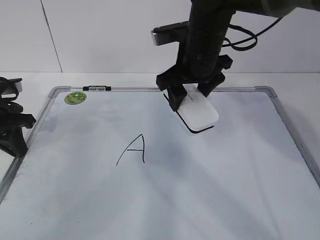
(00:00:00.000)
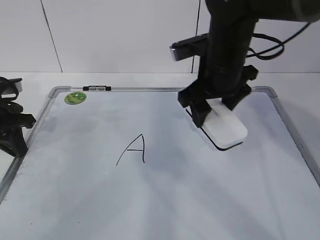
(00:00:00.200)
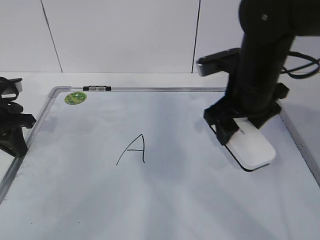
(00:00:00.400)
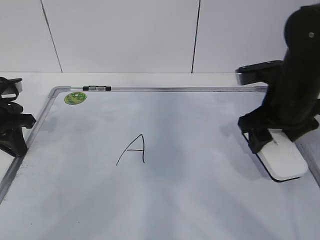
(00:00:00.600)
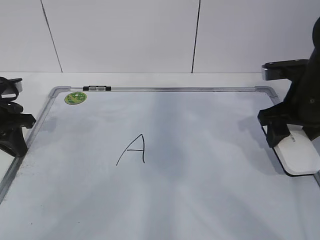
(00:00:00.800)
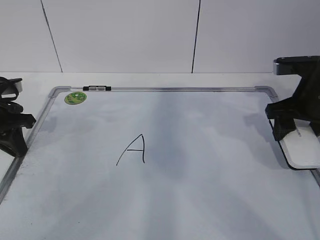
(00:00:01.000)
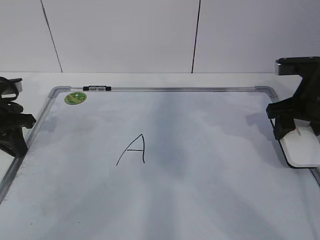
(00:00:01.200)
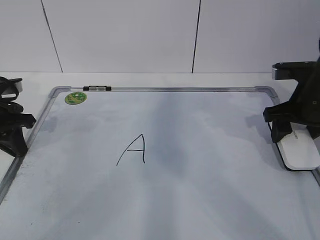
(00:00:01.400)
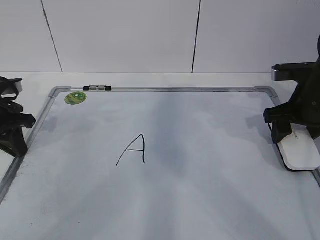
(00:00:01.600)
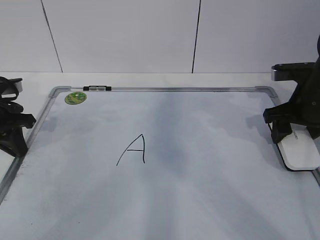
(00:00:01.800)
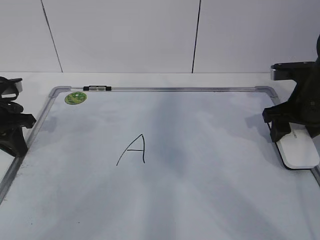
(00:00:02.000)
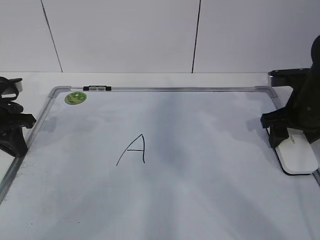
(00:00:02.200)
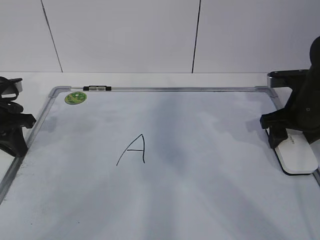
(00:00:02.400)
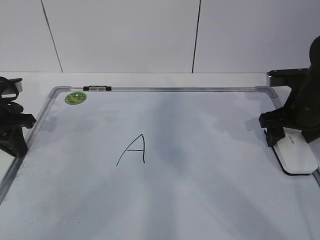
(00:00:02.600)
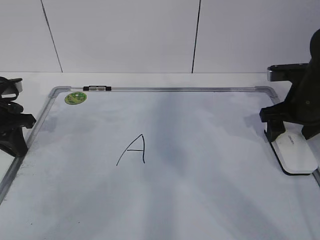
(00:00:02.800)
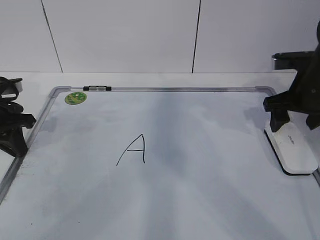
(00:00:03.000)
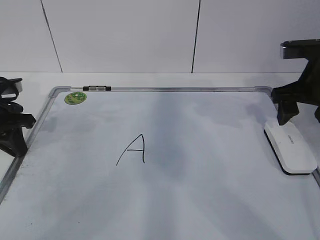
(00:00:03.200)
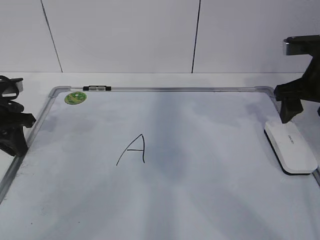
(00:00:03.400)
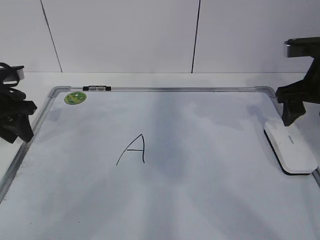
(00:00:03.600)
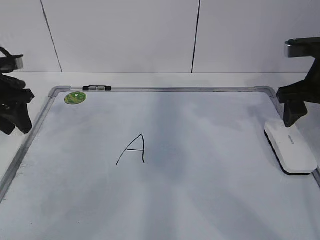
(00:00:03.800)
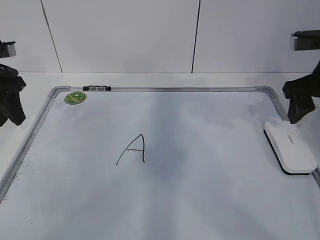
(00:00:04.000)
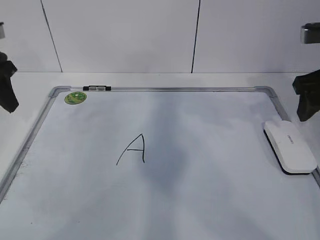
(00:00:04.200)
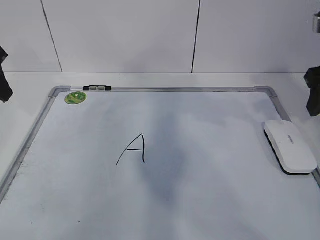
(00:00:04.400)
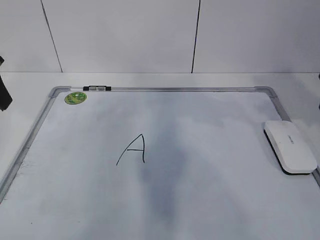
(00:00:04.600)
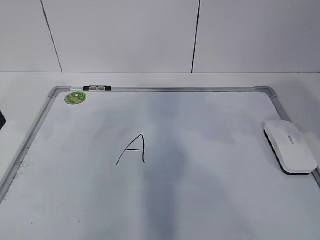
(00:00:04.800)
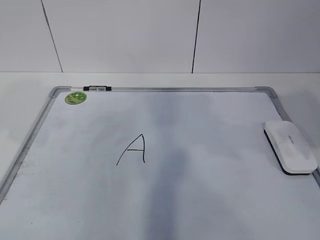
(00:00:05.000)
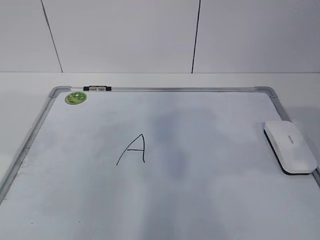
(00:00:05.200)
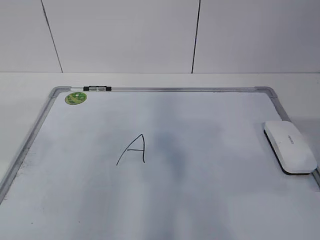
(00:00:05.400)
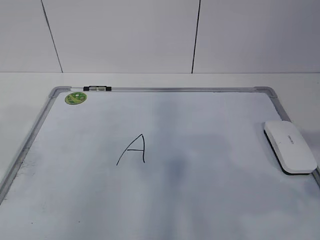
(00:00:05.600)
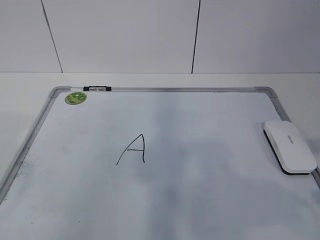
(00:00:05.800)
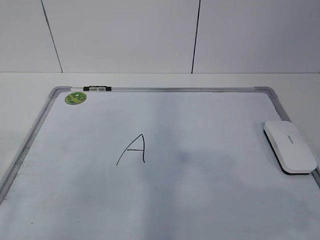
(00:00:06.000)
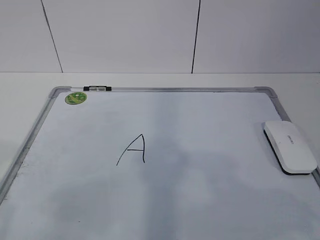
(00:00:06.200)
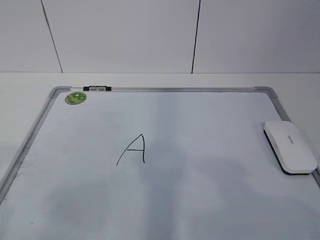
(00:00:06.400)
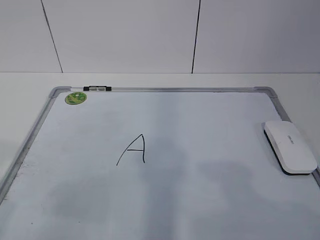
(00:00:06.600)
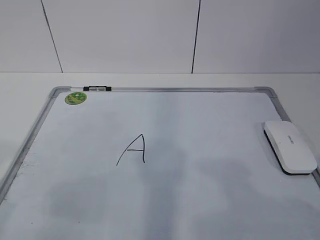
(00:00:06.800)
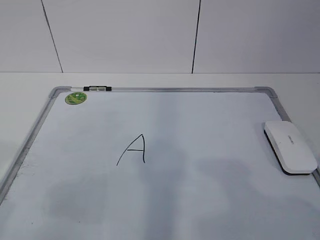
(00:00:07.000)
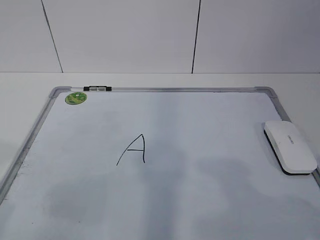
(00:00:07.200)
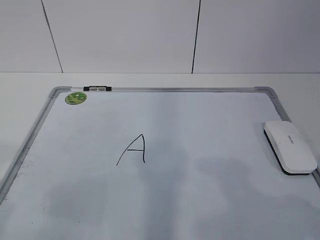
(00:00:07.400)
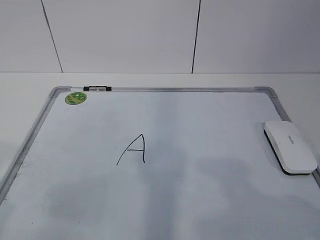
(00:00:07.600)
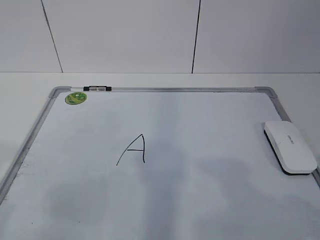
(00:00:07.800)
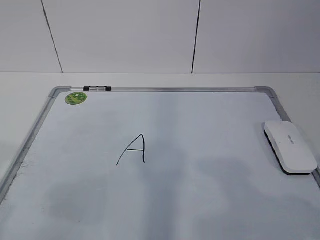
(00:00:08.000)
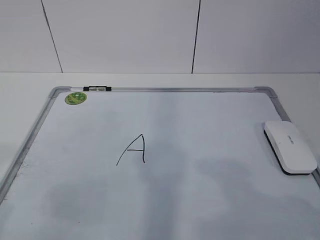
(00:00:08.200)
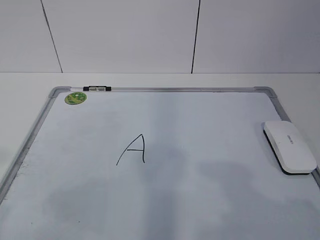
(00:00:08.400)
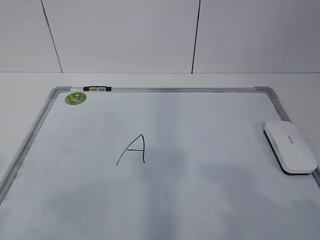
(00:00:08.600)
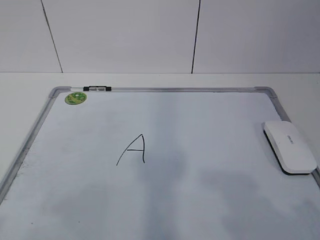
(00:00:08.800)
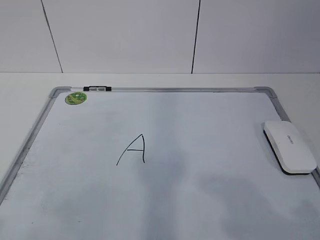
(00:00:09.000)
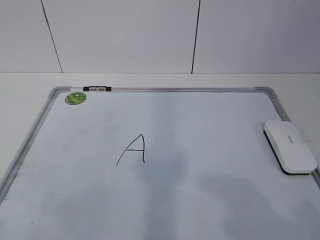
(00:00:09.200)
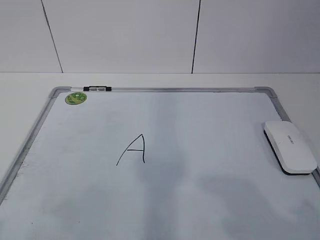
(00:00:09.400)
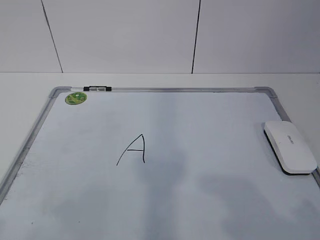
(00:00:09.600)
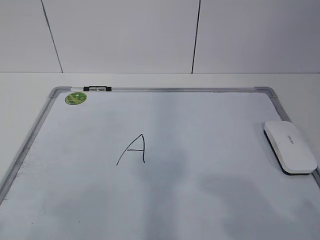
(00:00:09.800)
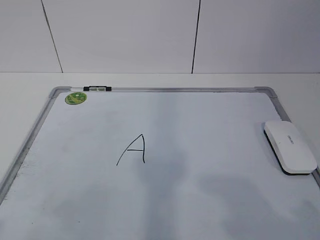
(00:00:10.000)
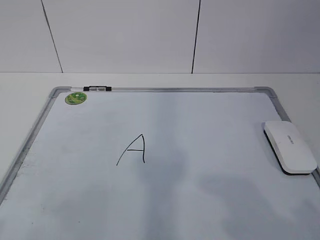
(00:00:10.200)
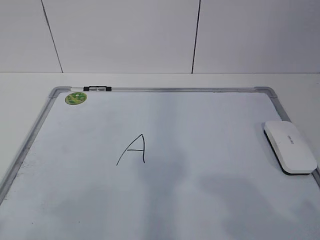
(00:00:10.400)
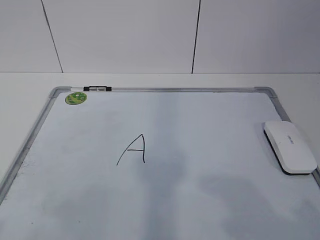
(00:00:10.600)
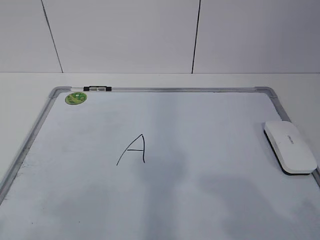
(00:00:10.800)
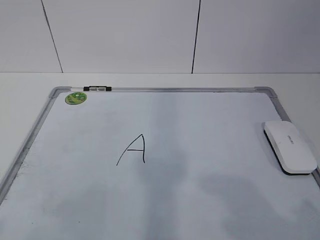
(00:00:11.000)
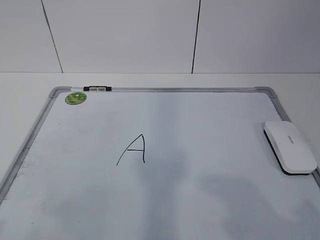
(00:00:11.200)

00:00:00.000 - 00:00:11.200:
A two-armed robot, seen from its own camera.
Task of the whole recording: pick up the eraser on the blackboard and erase the letter "a".
00:00:00.000 - 00:00:01.600: The right gripper moves to the right, roughly 20 cm.
00:00:01.600 - 00:00:03.200: The grippers stay close to where they were, moving slightly.
00:00:03.200 - 00:00:04.800: The left gripper goes approximately 15 cm upward and backward, and opens up. The right gripper shifts approximately 15 cm backward and upward.
00:00:04.800 - 00:00:06.400: The two grippers go some 20 cm backward.
00:00:09.600 - 00:00:11.200: Both grippers stay put.

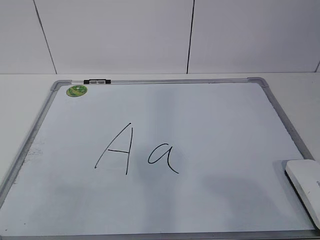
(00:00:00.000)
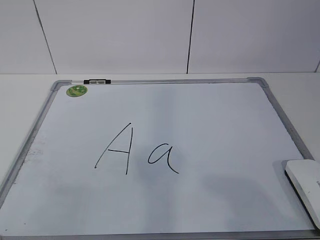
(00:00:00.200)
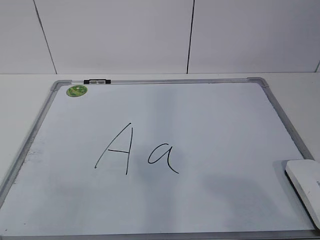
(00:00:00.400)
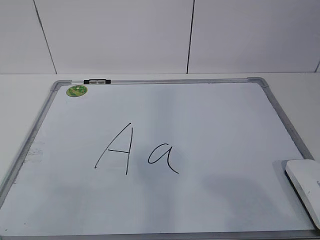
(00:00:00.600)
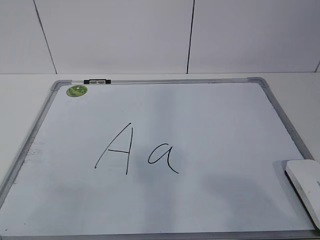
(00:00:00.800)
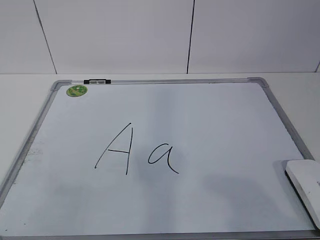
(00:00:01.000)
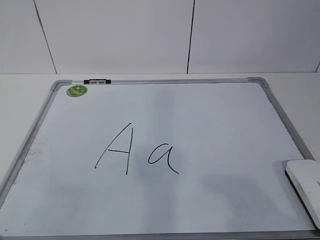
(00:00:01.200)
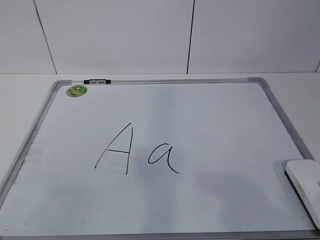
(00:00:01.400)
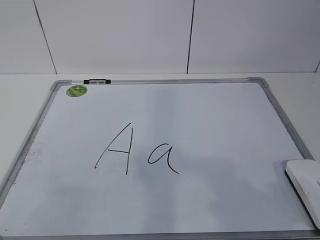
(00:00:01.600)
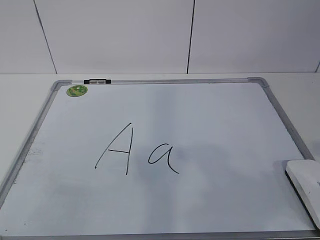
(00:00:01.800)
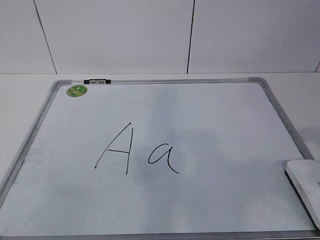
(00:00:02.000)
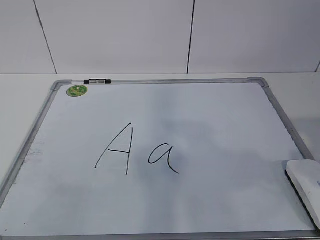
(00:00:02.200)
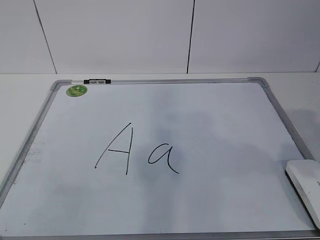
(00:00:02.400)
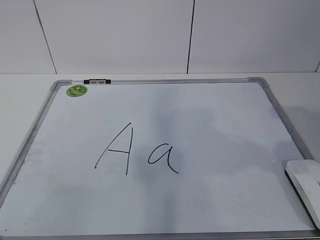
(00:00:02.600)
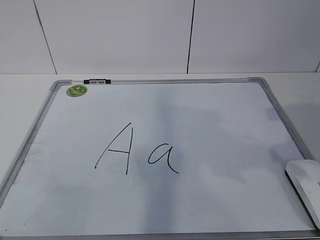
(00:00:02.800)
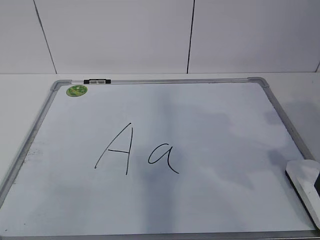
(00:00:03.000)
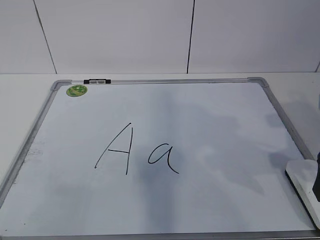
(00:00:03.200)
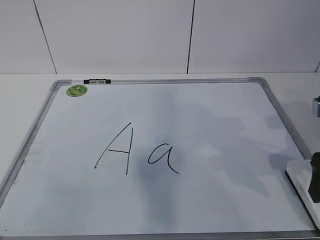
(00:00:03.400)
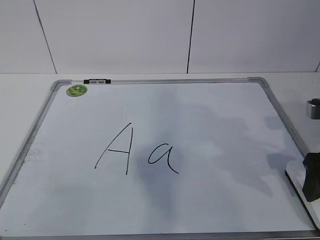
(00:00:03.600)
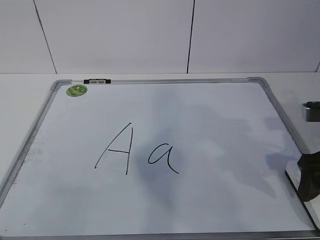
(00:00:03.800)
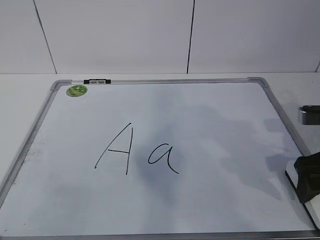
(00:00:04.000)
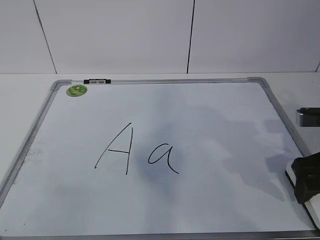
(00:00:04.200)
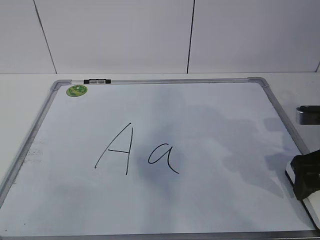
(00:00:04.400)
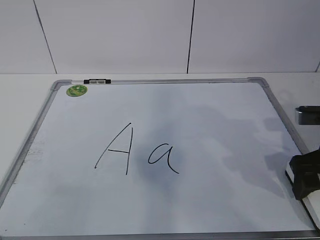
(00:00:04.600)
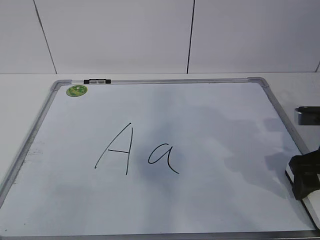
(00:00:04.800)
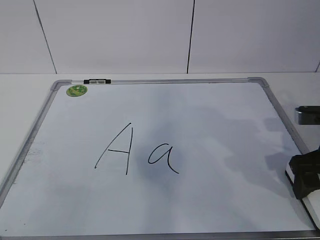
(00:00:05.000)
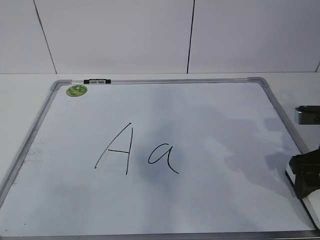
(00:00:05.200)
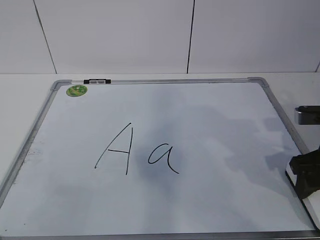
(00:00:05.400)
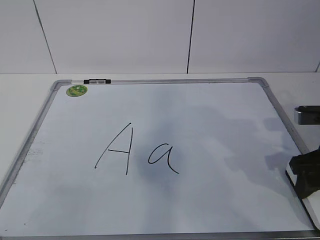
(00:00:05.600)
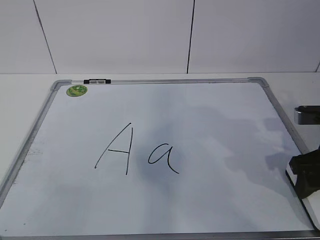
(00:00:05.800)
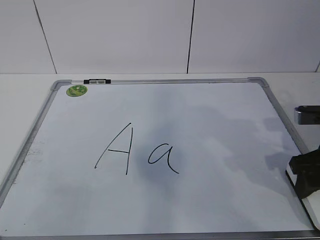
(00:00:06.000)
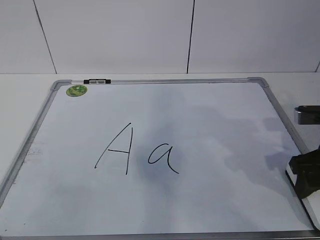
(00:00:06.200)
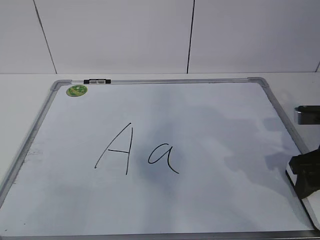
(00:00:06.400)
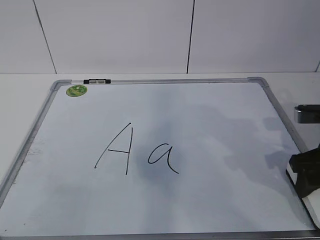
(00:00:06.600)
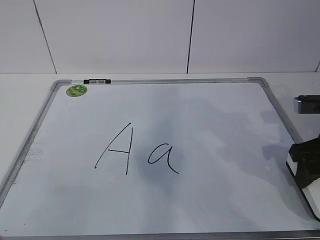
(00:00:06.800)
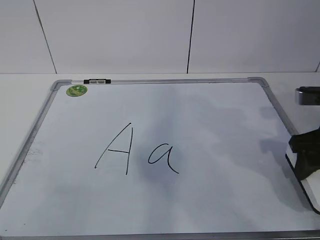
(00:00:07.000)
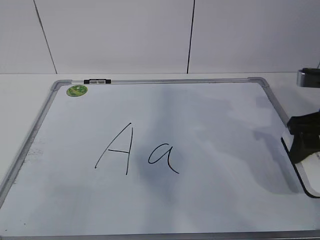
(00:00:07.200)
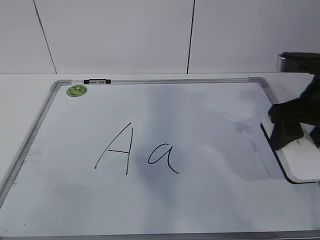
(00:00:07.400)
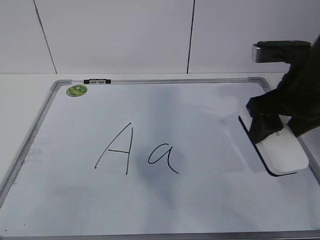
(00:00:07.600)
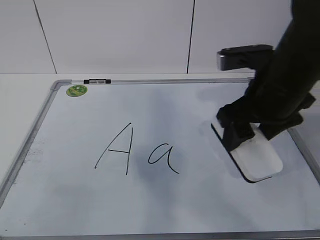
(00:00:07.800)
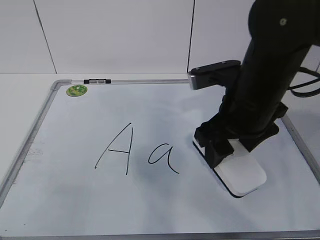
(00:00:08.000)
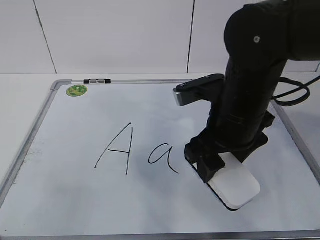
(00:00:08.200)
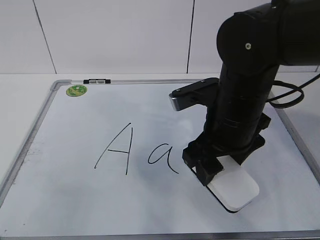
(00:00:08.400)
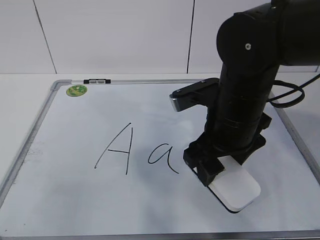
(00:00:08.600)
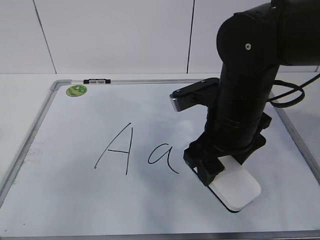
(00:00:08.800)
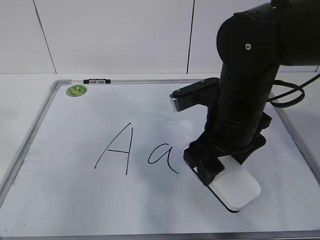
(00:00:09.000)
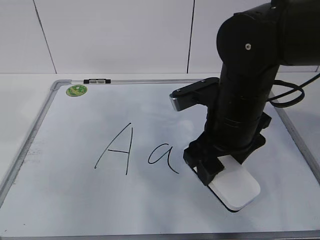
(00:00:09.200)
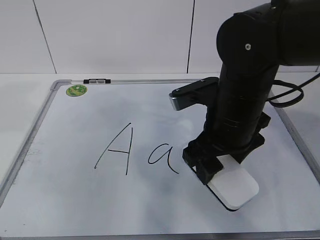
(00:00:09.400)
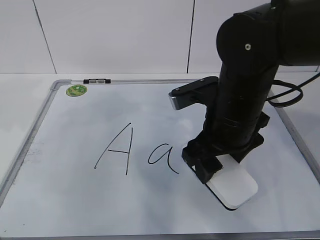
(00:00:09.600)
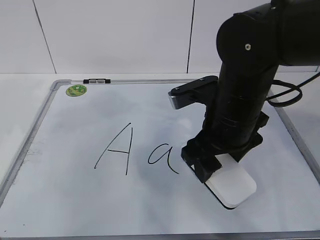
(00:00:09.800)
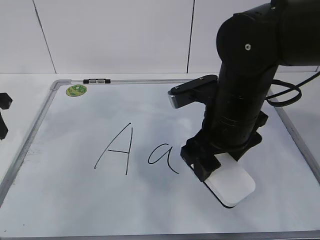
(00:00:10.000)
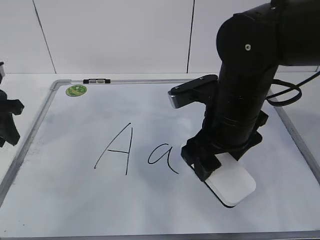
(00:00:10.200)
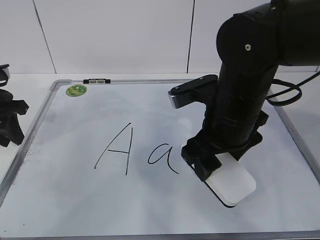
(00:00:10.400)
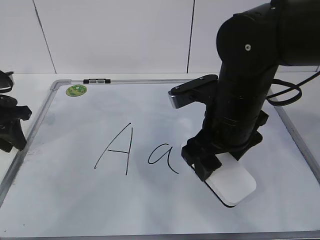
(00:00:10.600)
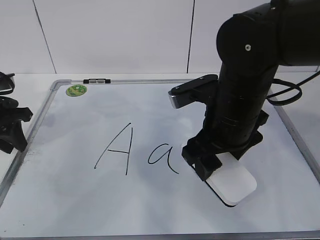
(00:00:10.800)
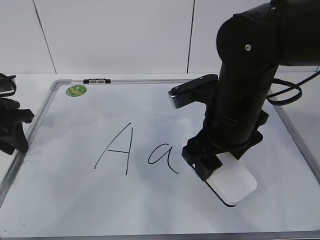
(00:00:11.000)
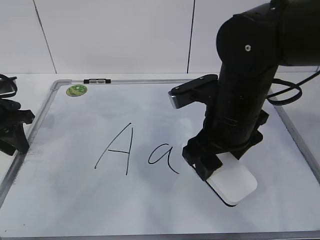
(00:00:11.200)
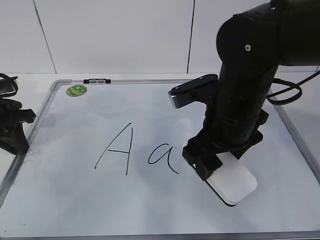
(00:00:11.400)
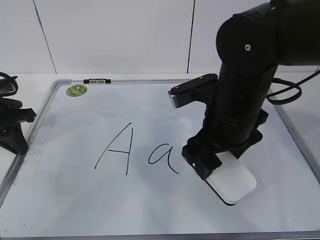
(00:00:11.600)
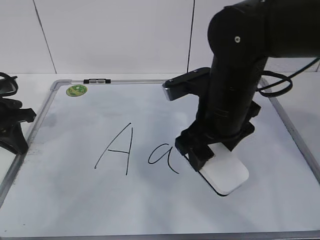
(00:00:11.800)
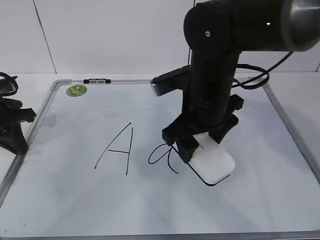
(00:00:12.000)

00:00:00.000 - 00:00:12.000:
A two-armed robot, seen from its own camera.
Task of the whole recording: pick up the eraser on the blackboard and erase the letter "a".
Step, 00:00:05.400 - 00:00:09.400: Hold the drawing board steady with your left hand.
00:00:01.600 - 00:00:03.000: The right gripper heads forward, covering approximately 20 cm, and opens.
00:00:03.000 - 00:00:04.400: The right gripper travels downward by approximately 5 cm.
00:00:06.000 - 00:00:07.600: The right gripper goes some 10 cm upward and to the left.
00:00:07.600 - 00:00:09.000: The right gripper moves to the left, some 10 cm. Meanwhile the left gripper is displaced forward by some 10 cm.
00:00:09.000 - 00:00:10.400: The left gripper heads forward and downward, covering roughly 30 cm.
00:00:10.400 - 00:00:12.000: The left gripper closes, while the right gripper ends up roughly 5 cm from where it was.
